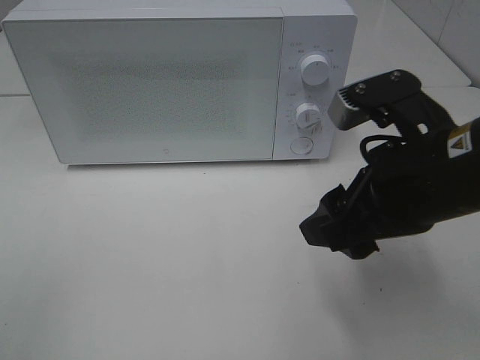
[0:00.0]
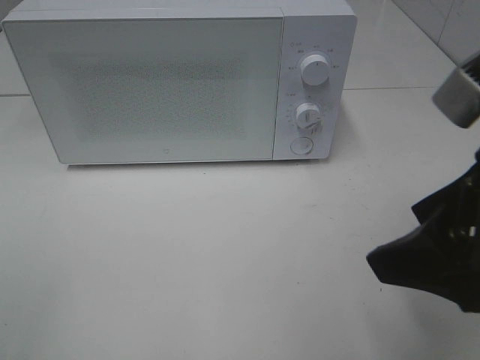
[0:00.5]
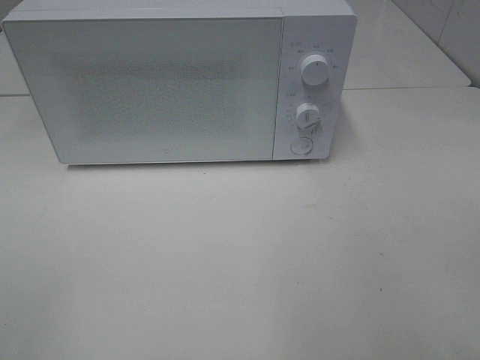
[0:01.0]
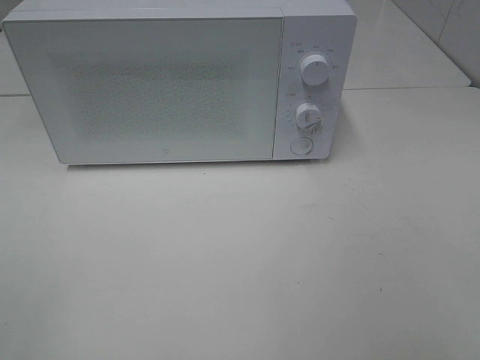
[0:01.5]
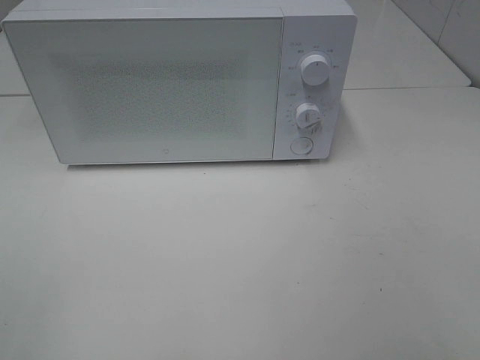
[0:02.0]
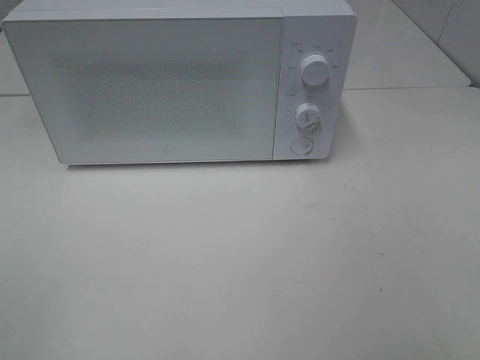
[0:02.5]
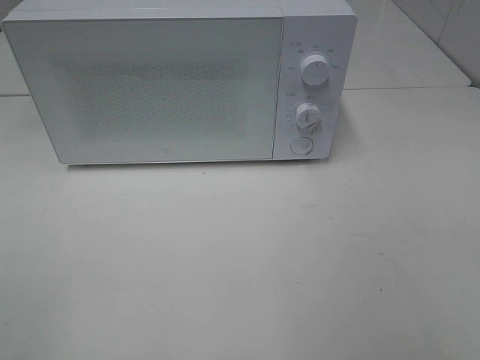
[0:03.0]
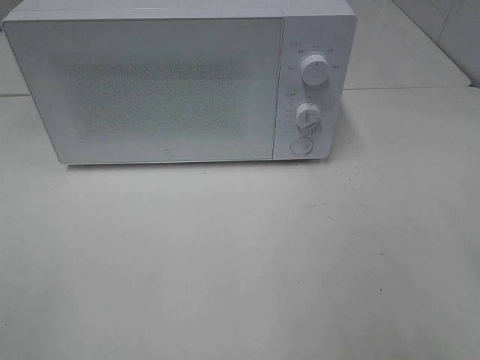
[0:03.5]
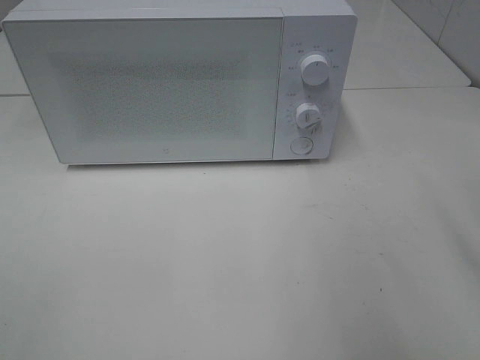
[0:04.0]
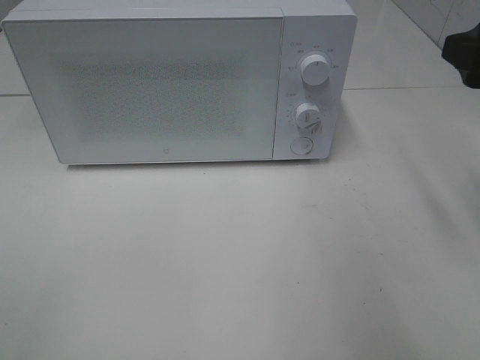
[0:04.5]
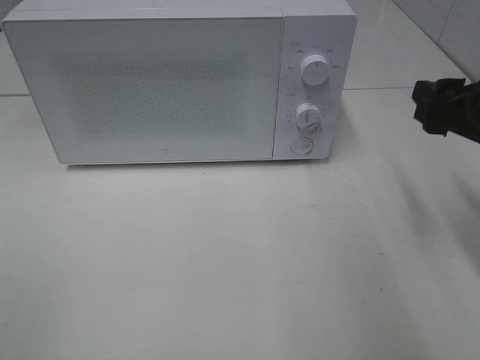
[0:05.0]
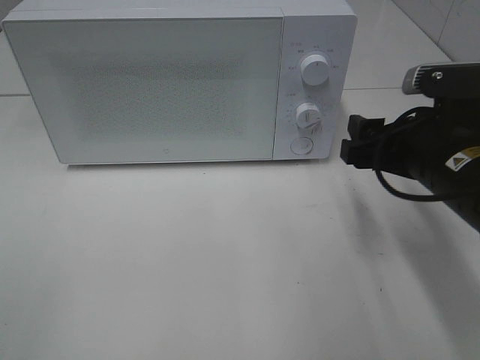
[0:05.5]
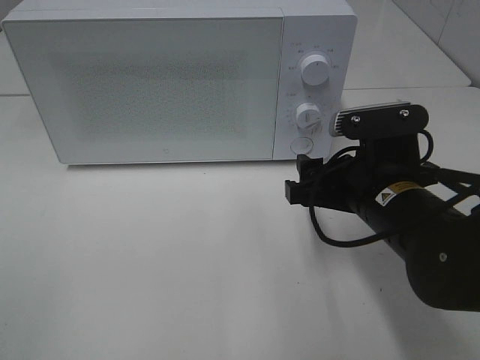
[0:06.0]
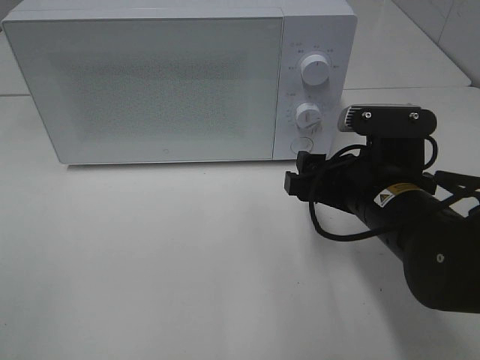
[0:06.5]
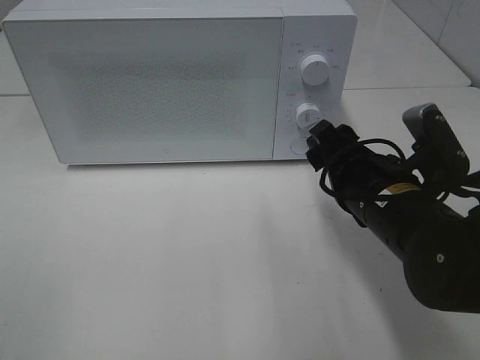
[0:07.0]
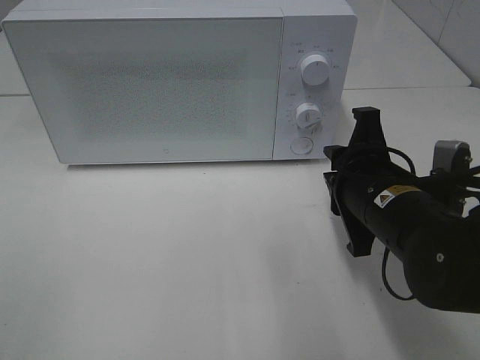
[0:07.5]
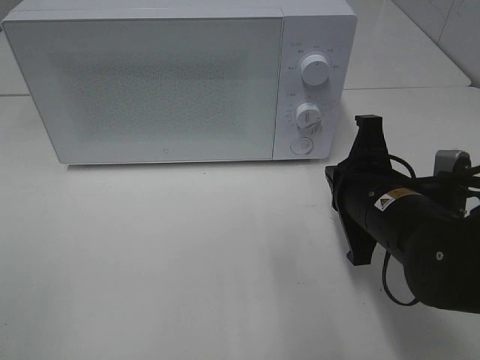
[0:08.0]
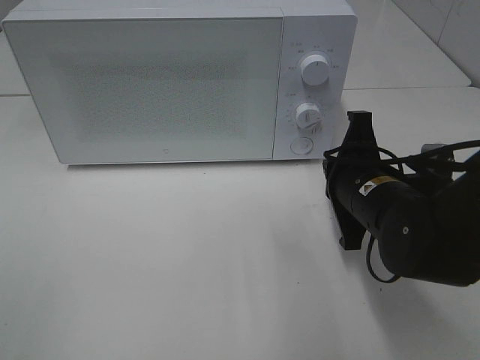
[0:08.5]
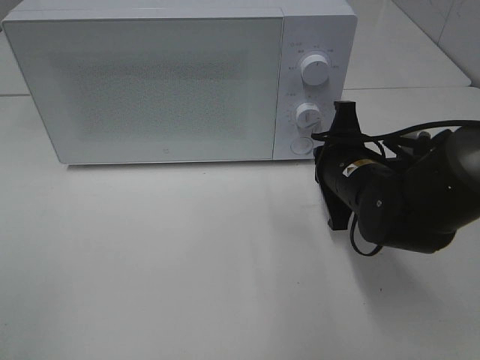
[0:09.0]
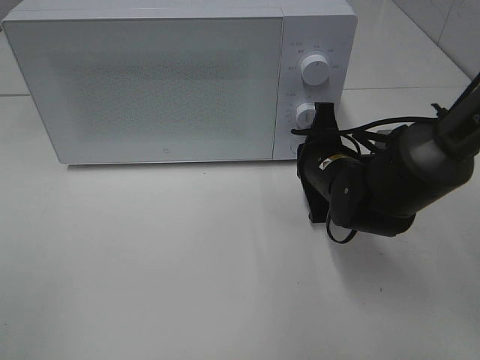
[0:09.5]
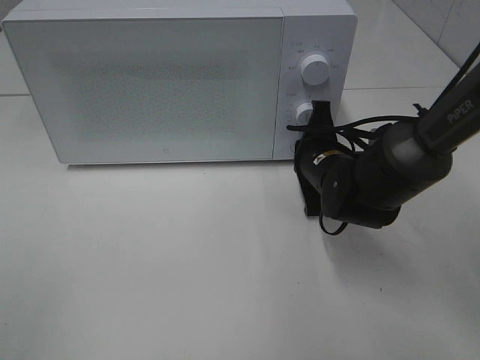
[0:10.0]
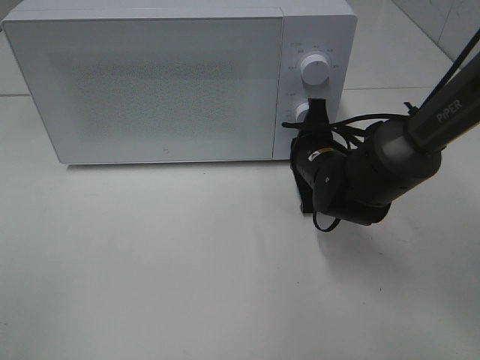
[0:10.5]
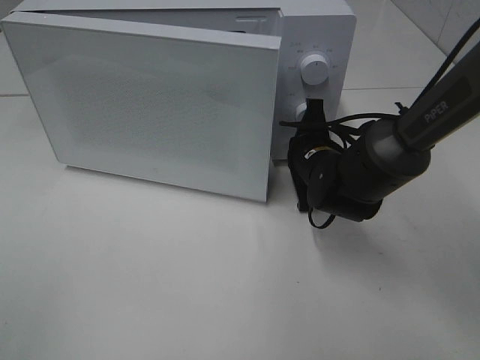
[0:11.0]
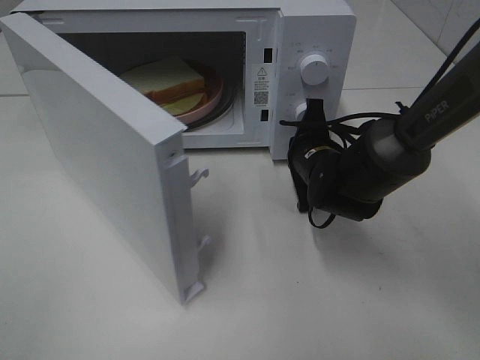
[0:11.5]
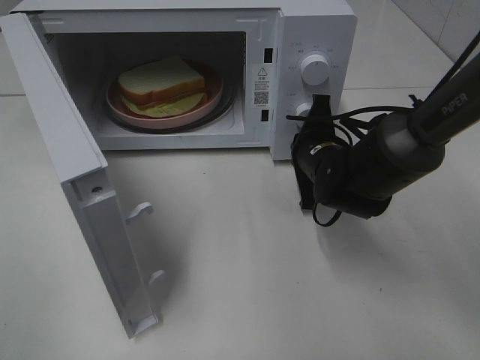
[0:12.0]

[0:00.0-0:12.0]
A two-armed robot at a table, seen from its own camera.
Task of the whole recording: Heat Sandwich.
0:00.0 to 0:02.0: The right gripper shifts some 25 cm backward and to the right.
0:04.0 to 0:06.0: The right gripper travels downward, to the left and forward by some 20 cm.
0:06.0 to 0:08.0: The right gripper closes its fingers.
0:08.0 to 0:10.0: The right gripper shifts approximately 15 cm forward and downward.

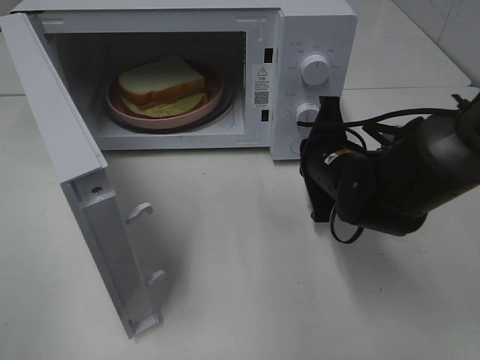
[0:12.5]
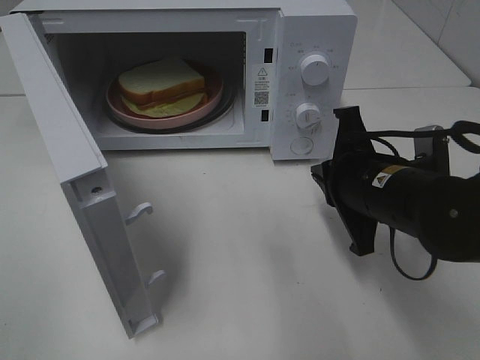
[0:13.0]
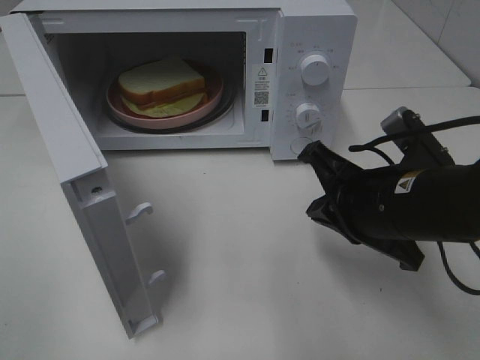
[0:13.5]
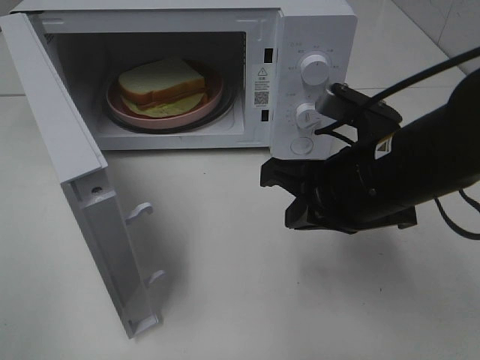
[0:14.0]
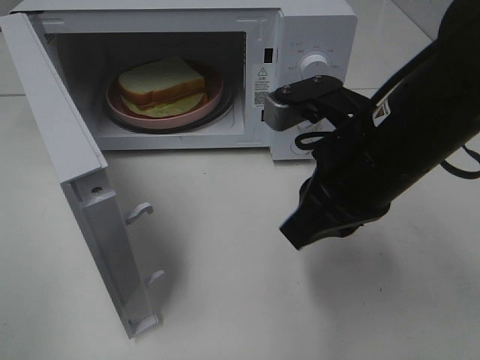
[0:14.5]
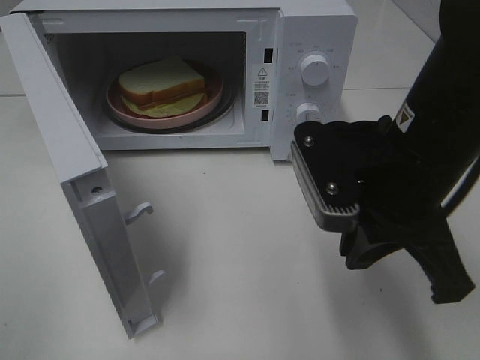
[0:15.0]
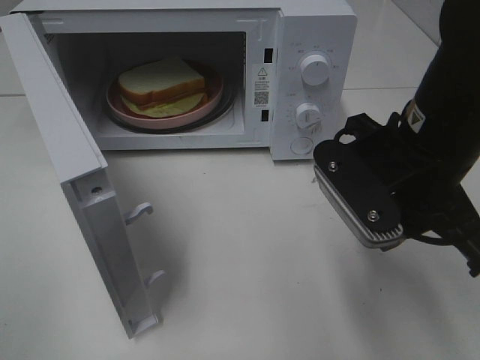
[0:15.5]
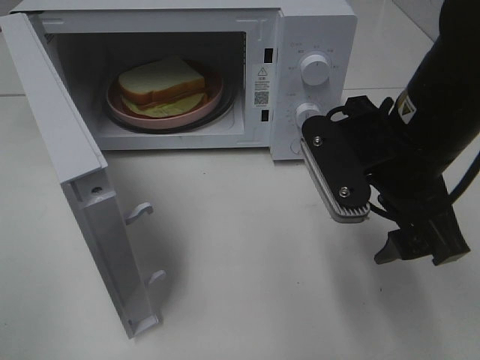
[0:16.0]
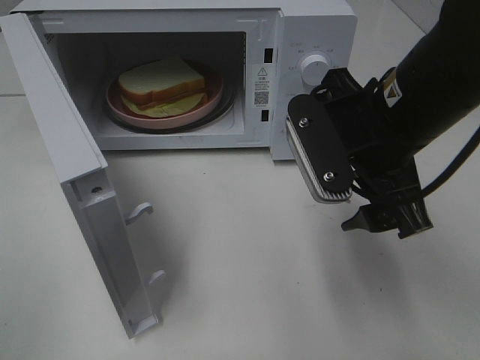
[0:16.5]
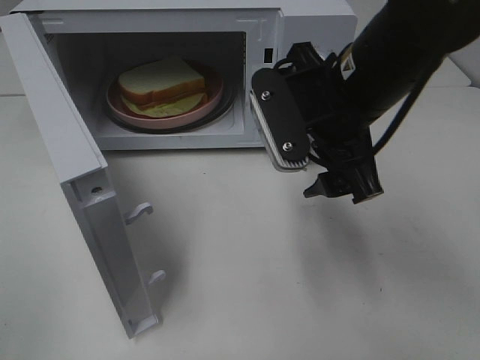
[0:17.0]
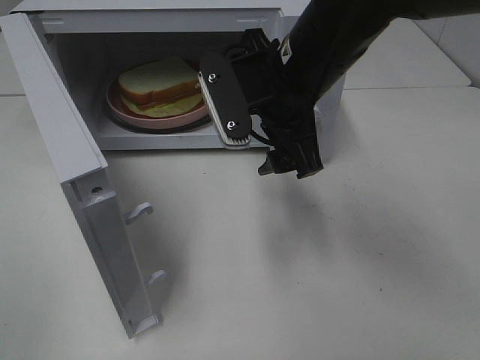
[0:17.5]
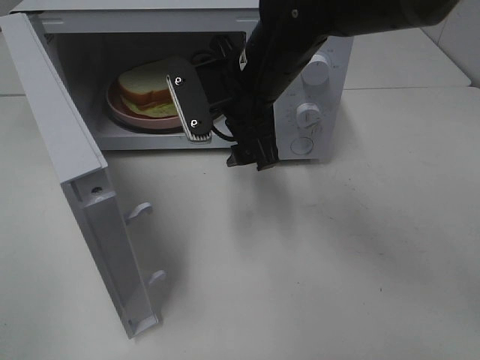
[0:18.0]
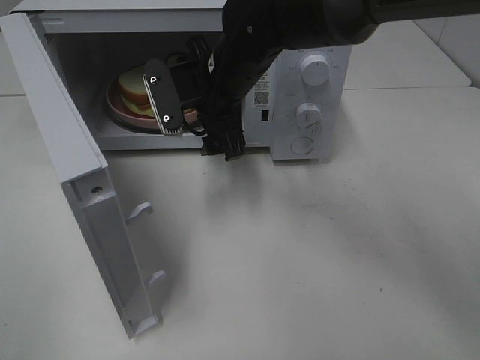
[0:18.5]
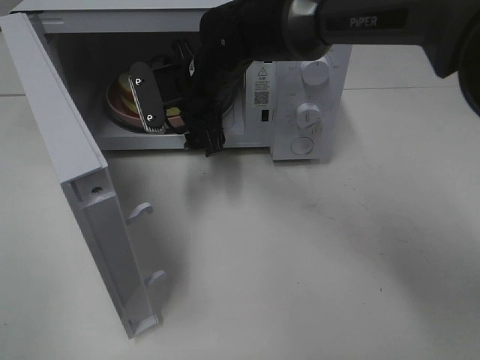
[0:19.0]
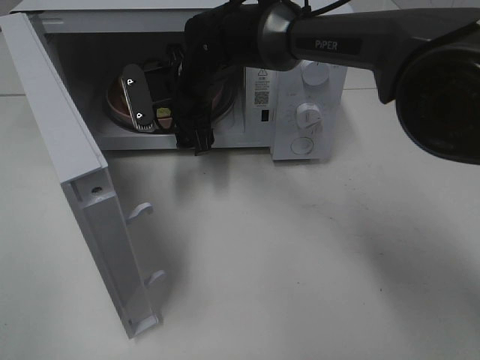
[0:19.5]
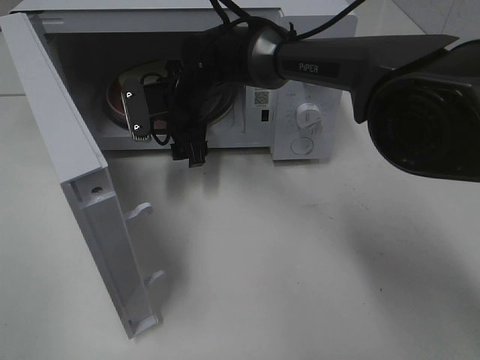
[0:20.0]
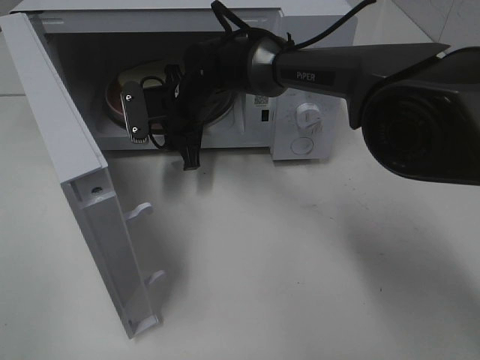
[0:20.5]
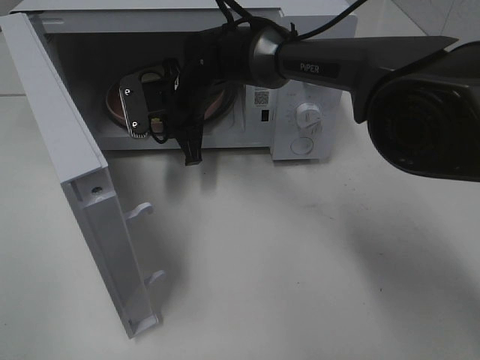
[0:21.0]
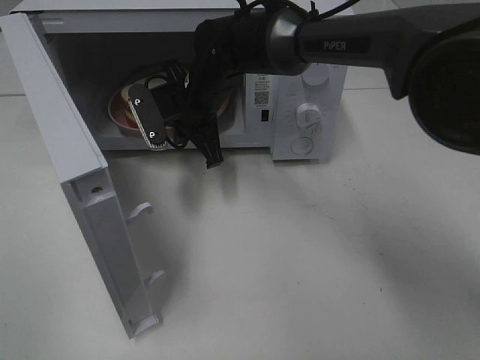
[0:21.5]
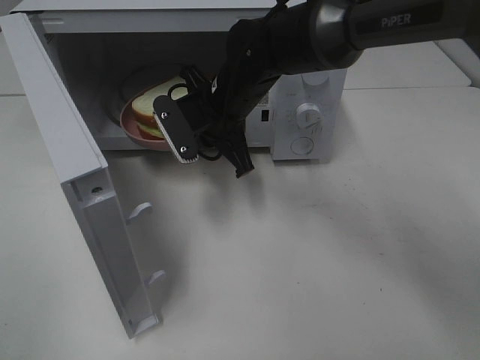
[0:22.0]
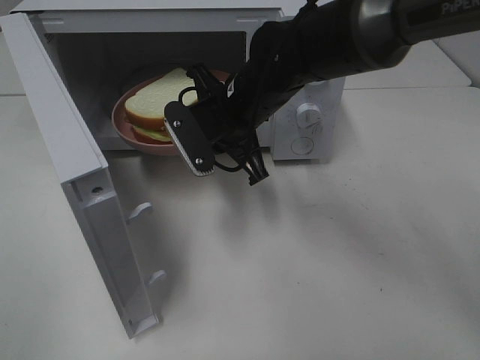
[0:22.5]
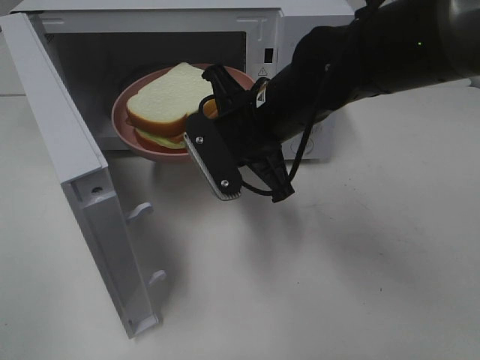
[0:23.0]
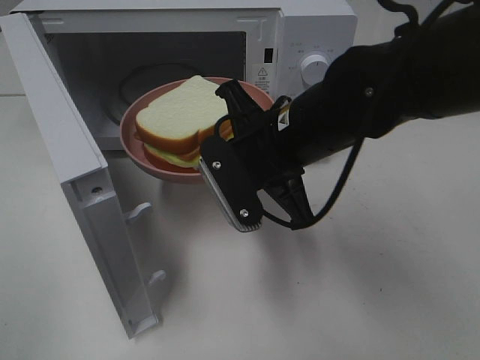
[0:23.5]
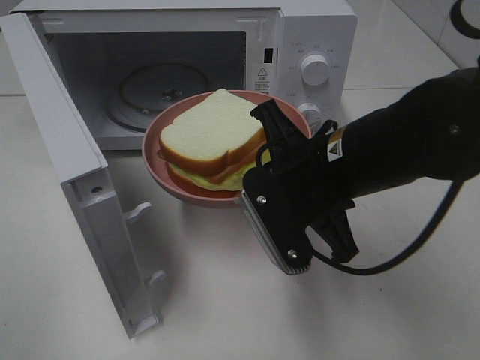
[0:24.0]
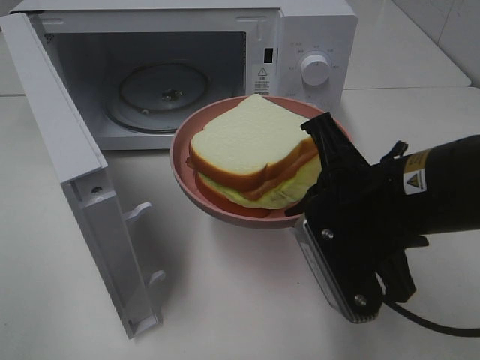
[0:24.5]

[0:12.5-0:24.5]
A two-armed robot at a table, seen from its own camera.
Task of the whole recording: Heat Sandwich.
Step, 0:13.0 to 0:20.5: Right hand: grab the plate with the sandwich.
0:12.5 to 0:14.5: The right gripper is displaced upward and backward by some 15 cm.
0:14.5 to 0:16.5: The right gripper opens its fingers.
0:16.5 to 0:18.5: The right gripper goes roughly 20 cm forward and to the left.
0:18.5 to 0:20.5: The right gripper heads downward and forward, covering approximately 10 cm, and closes.
0:20.5 to 0:22.5: The right gripper shifts some 15 cm backward, to the right and upward, and closes.
0:22.5 to 0:24.5: The right gripper moves backward and to the right, about 20 cm.

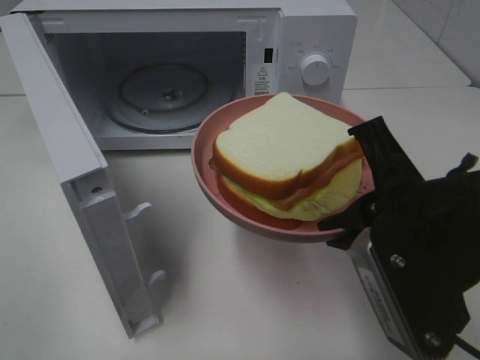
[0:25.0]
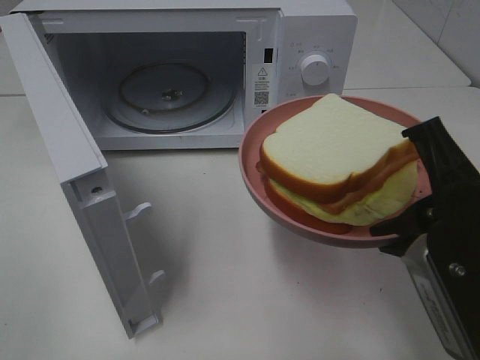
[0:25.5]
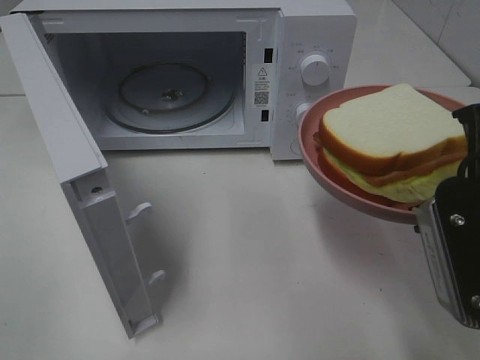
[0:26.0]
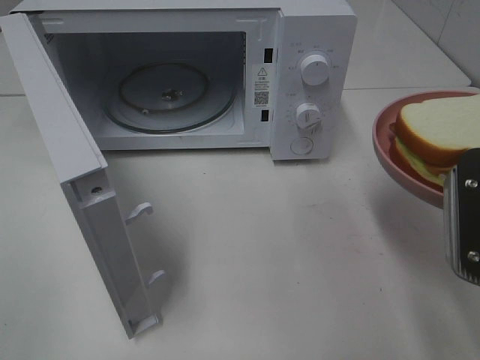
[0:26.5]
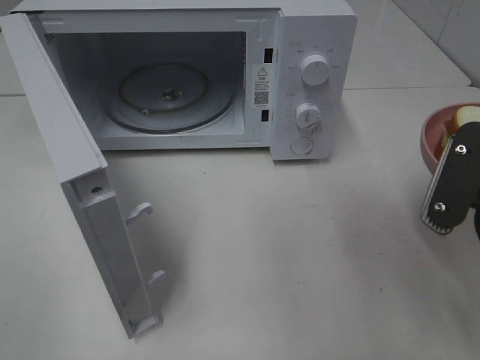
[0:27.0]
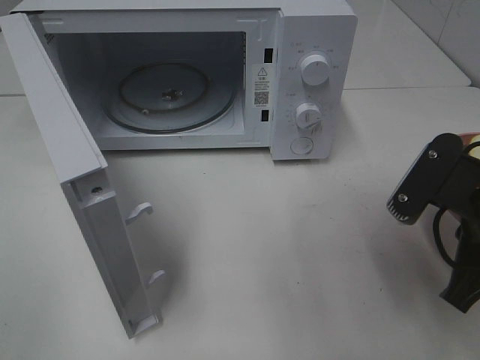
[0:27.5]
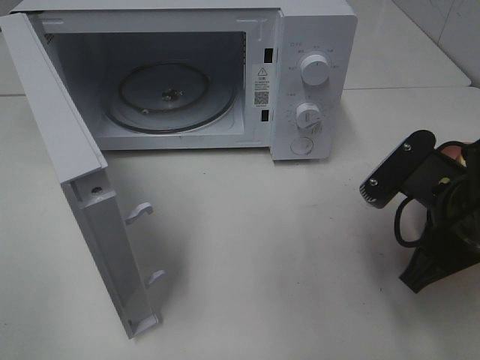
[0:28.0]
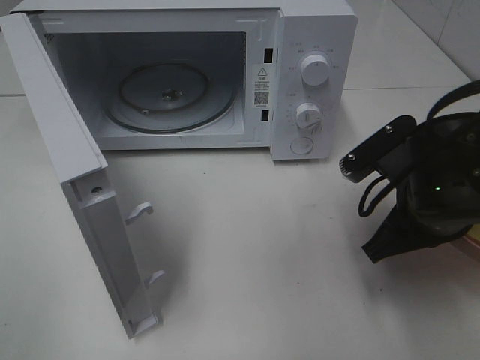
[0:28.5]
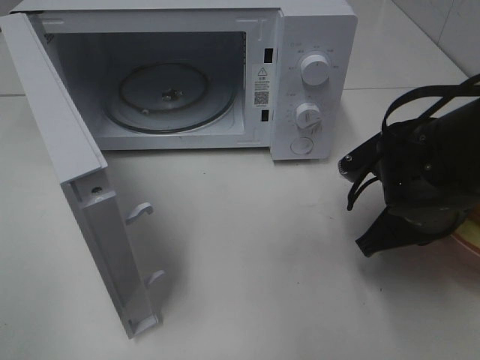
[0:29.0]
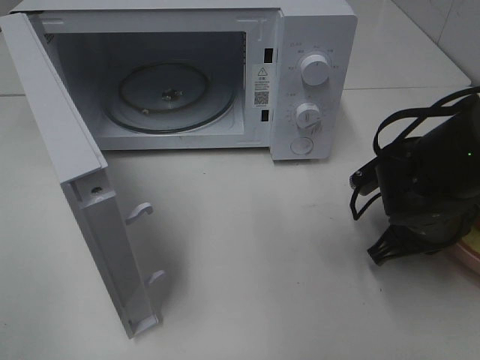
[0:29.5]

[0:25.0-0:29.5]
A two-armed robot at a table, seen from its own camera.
Task of the whole recording: Heat Sandwich.
0:25.0 to 0:27.0: The right gripper travels to the right by approximately 5 cm.
0:27.0 to 0:29.5: The right gripper goes roughly 15 cm downward and forward.
